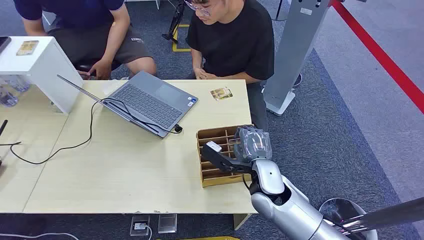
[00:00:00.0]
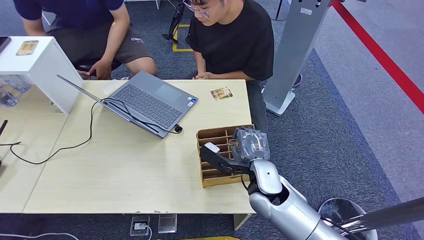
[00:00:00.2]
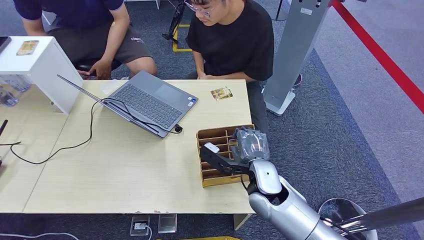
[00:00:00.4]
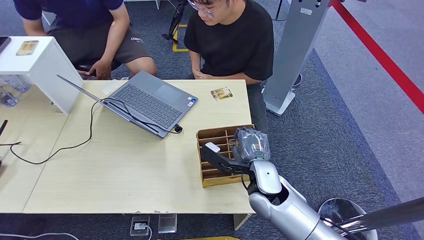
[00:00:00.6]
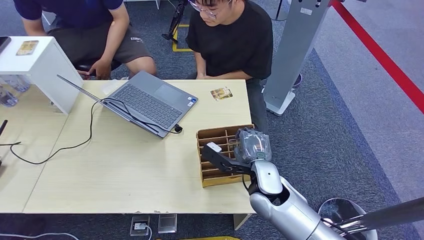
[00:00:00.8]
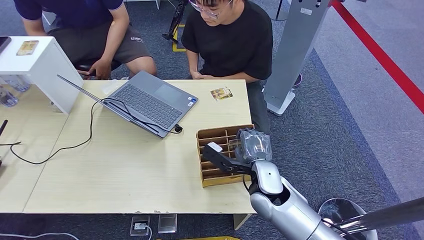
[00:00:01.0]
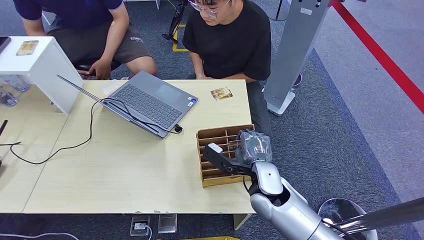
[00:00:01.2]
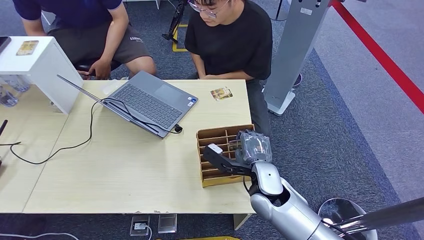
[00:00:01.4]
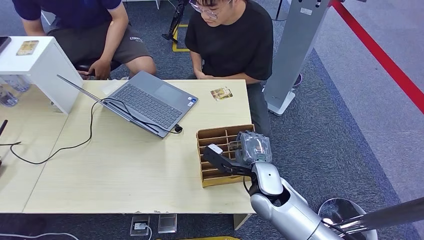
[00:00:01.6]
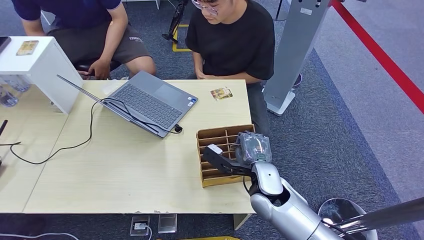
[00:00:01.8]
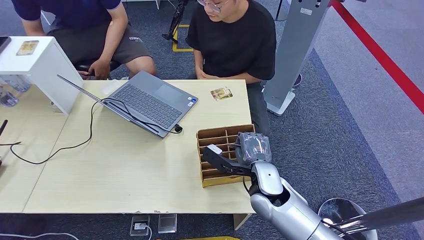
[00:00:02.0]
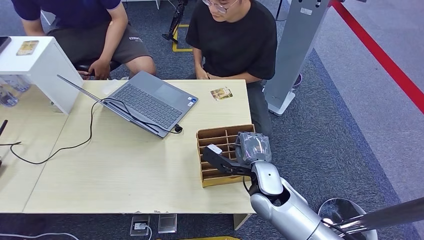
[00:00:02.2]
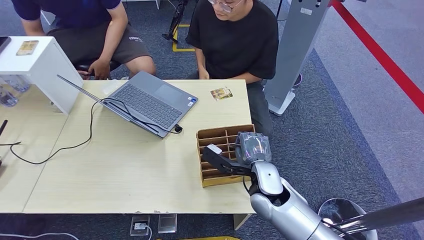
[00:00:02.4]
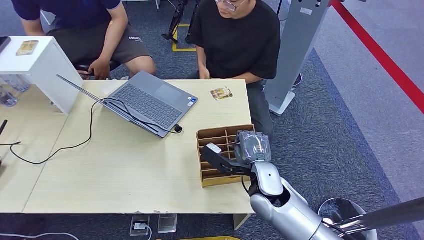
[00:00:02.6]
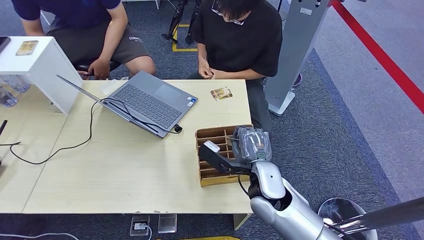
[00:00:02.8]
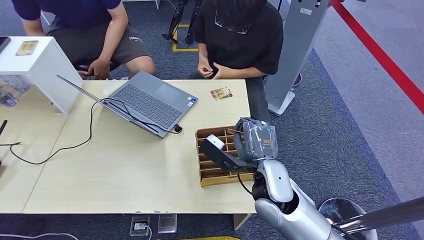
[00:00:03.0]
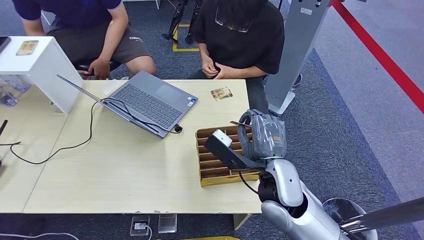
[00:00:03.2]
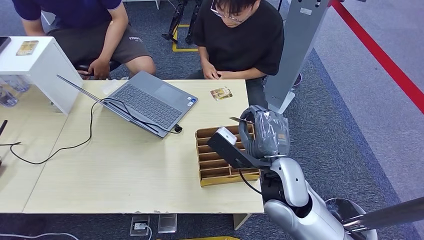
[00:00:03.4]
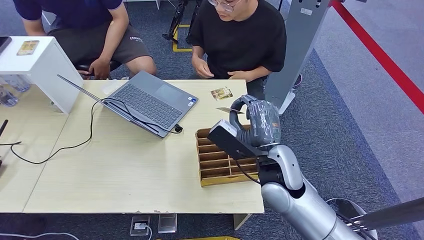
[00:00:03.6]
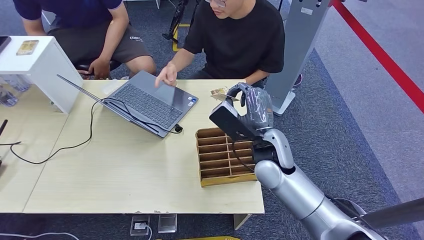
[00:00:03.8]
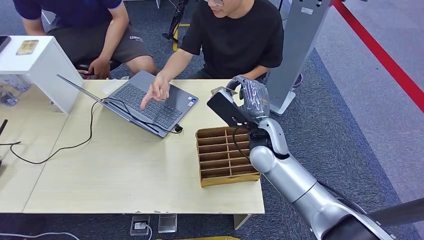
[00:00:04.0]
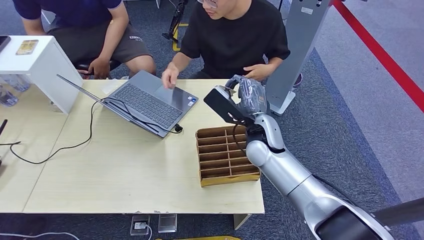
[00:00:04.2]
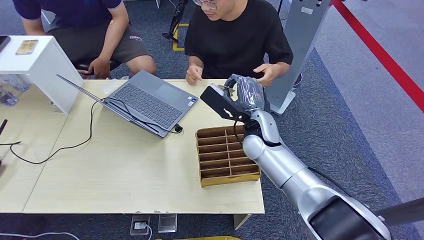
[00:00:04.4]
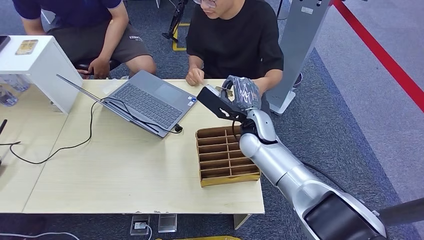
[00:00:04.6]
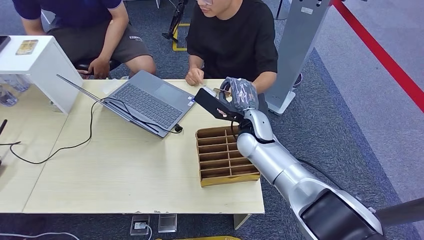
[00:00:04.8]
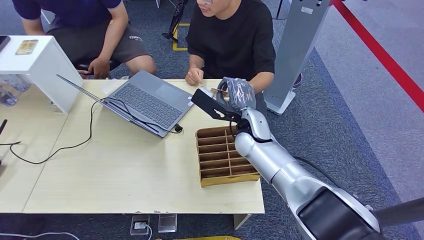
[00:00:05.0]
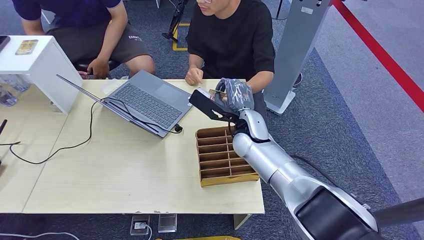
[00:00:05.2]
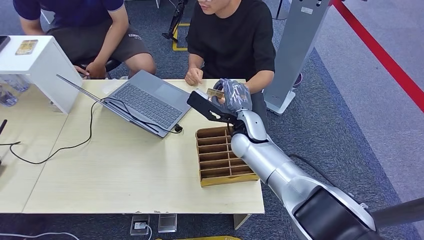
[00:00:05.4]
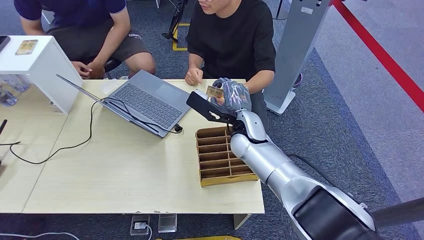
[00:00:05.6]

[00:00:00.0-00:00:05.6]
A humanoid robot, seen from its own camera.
Task of the whole recording: Pick up the card and hand it over to the target person.
Step, 00:00:00.0 to 00:00:03.0: Pick up the key card from the card box.
Step, 00:00:03.6 to 00:00:05.6: Hand the key card to the target.
00:00:01.4 to 00:00:02.8: The right hand is displaced upward by some 10 cm.
00:00:02.8 to 00:00:04.2: The right hand goes roughly 15 cm forward.
00:00:04.2 to 00:00:05.6: The hands make only small movements.
